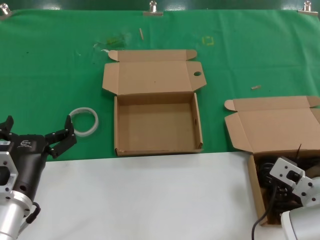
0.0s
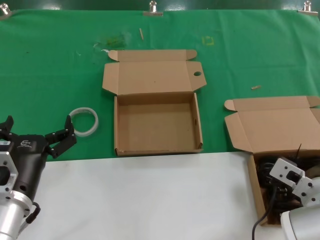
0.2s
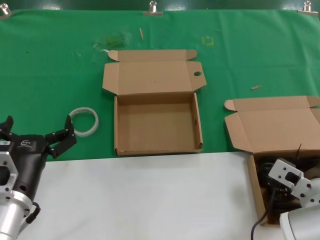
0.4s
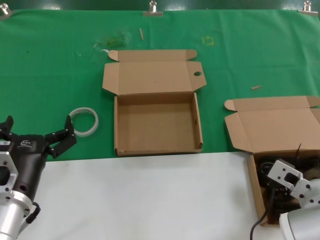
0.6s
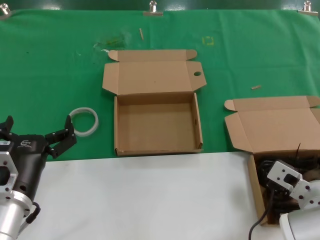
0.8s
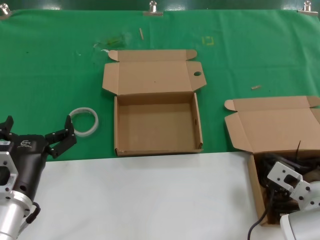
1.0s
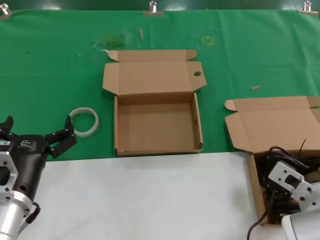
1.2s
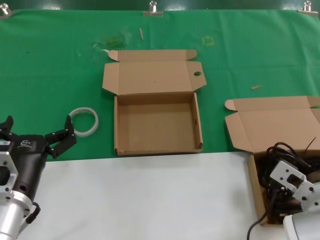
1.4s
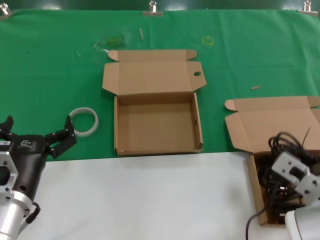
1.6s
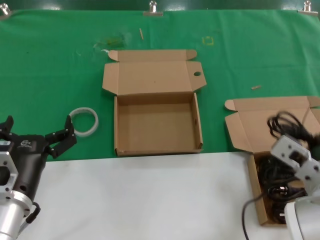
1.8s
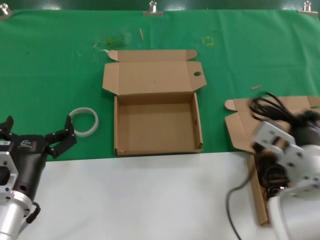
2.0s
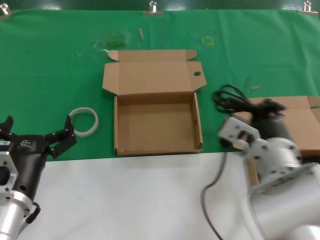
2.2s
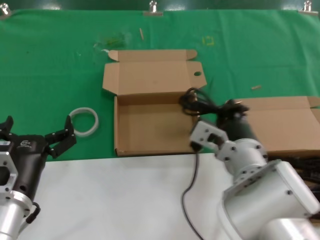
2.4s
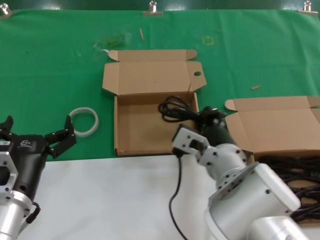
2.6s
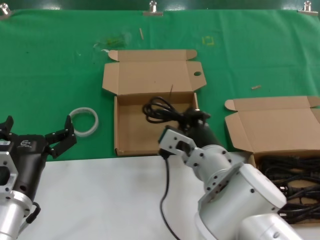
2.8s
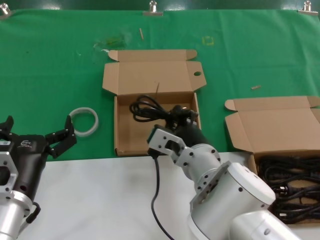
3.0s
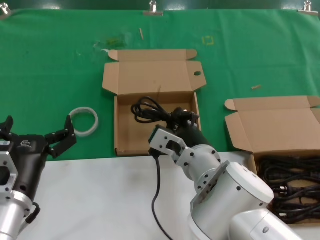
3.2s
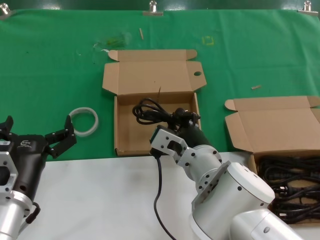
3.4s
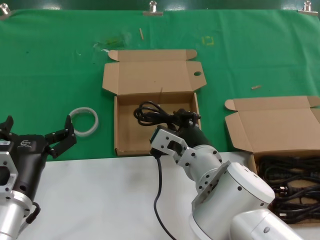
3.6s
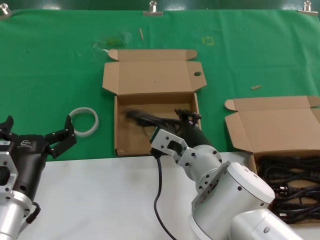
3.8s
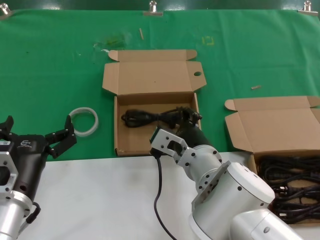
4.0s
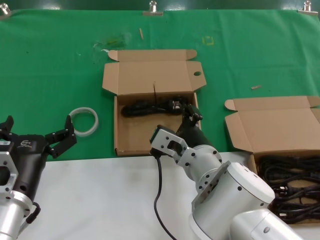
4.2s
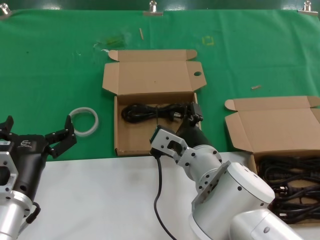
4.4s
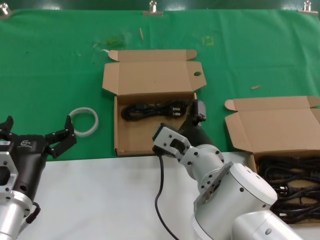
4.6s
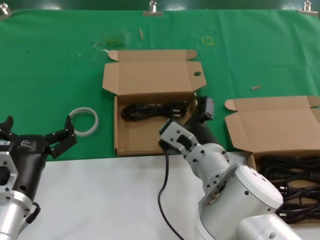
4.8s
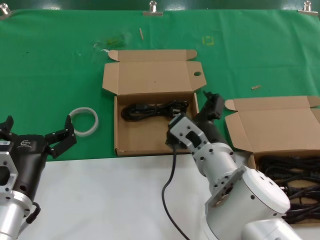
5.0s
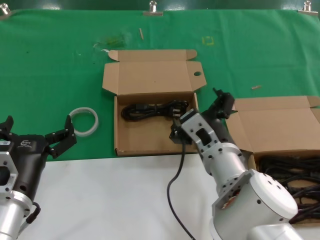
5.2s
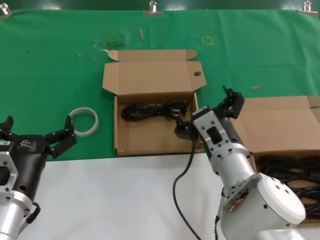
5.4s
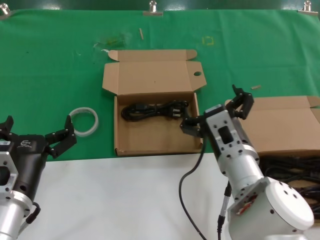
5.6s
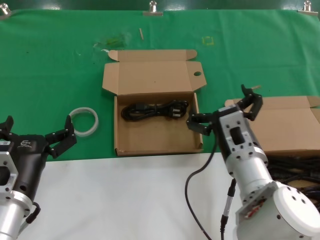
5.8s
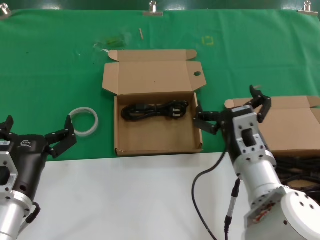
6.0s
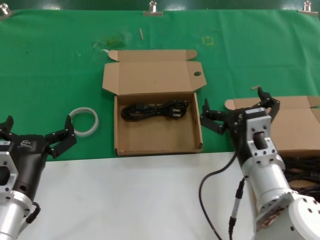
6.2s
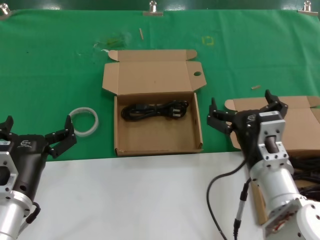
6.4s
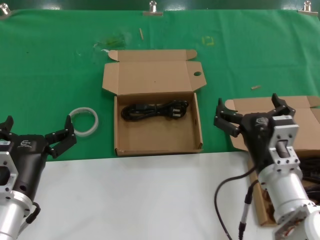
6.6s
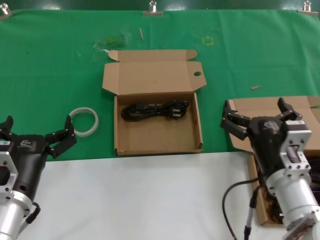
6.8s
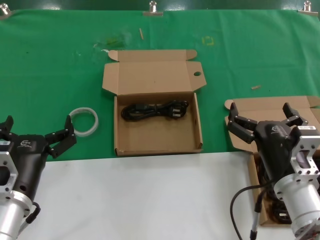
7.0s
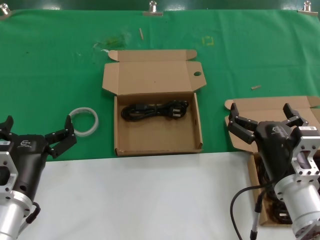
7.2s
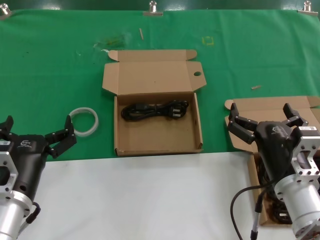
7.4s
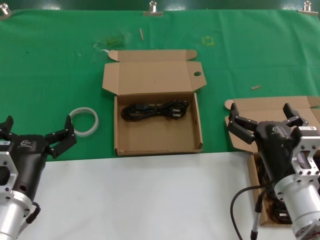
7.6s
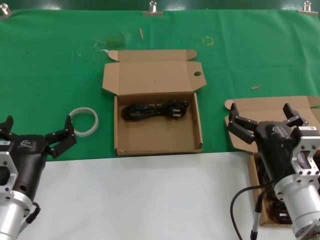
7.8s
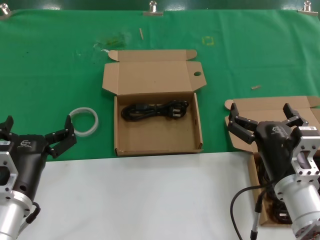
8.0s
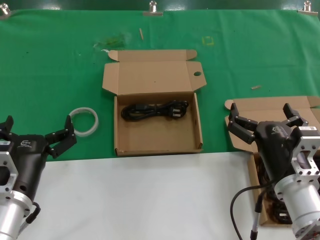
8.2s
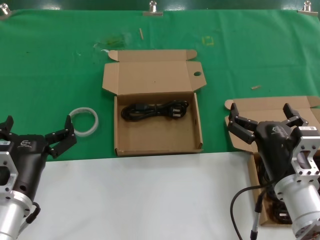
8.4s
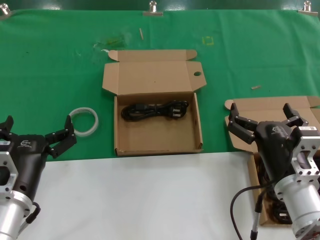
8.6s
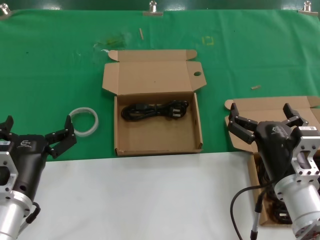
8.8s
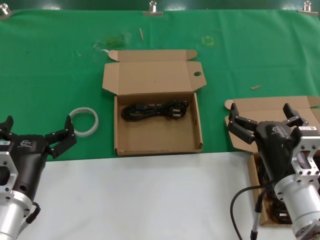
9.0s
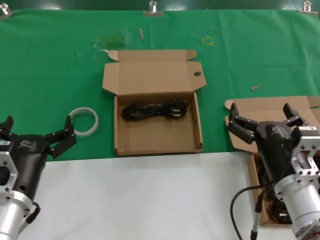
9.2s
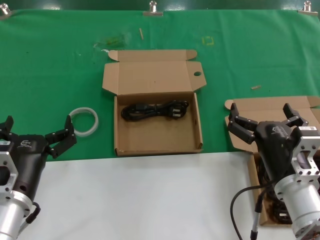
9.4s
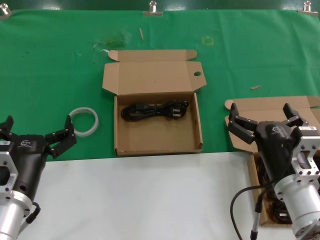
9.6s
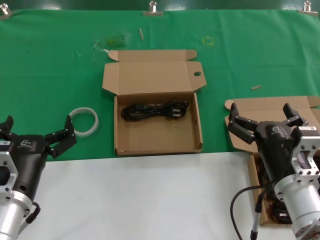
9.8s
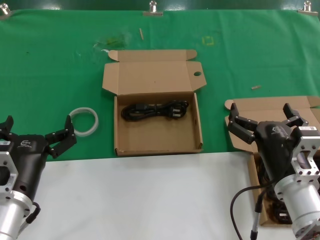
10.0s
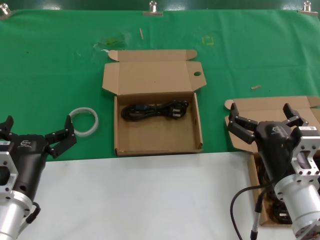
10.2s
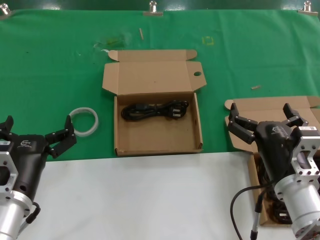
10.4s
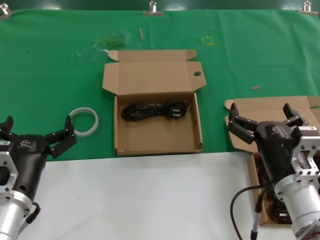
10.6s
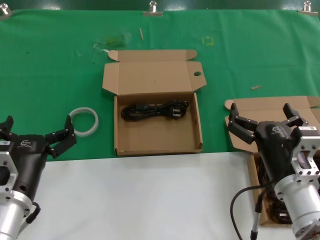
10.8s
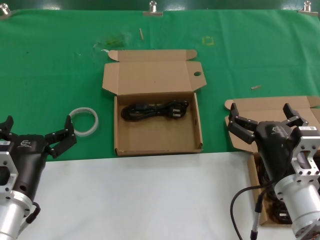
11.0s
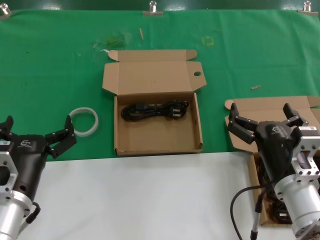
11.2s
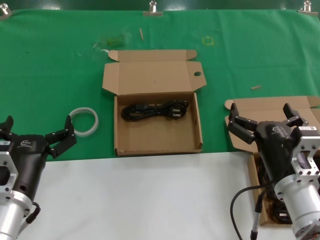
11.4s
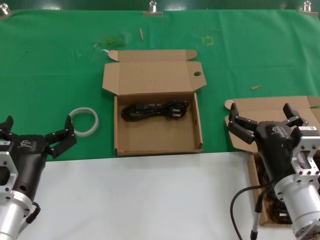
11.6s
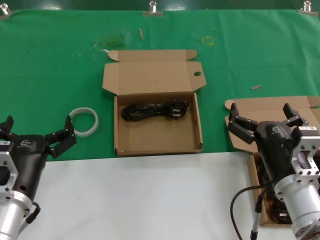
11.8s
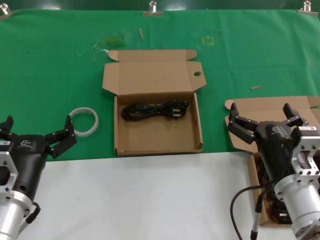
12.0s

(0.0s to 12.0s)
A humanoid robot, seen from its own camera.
Task of the whole recording: take the parts from the box containing them and put them into an empty box.
Step, 1.4s - 3.8s: Place the data cable in the another box.
0.0s - 1.6s: The hands make only small movements.
1.6s - 3.0s: The right hand moves to the left, about 15 cm.
3.0s - 4.4s: Both hands stay put.
4.4s - 6.0s: The right hand heads to the right, covering approximately 10 cm.
6.0s - 7.6s: The right hand travels to the right by roughly 5 cm.
7.6s - 12.0s: Both hands stay put.

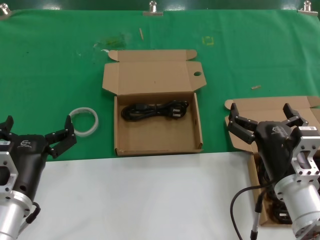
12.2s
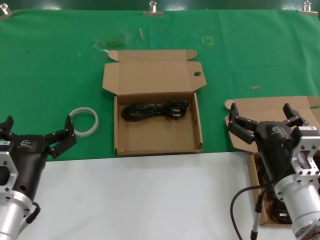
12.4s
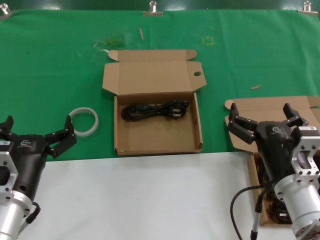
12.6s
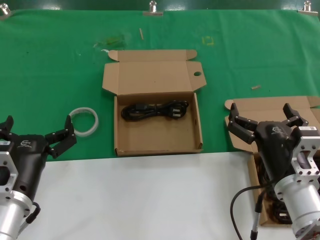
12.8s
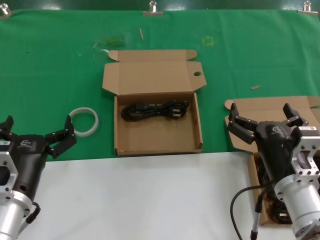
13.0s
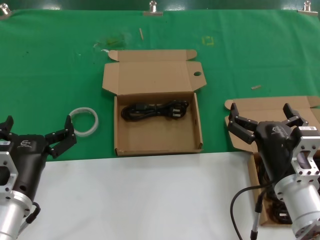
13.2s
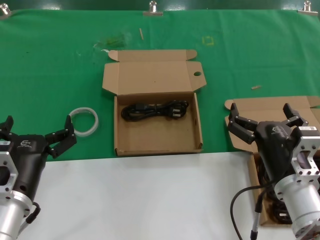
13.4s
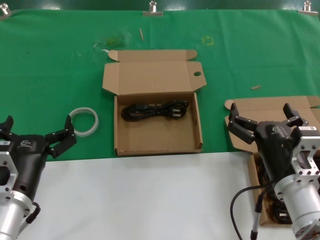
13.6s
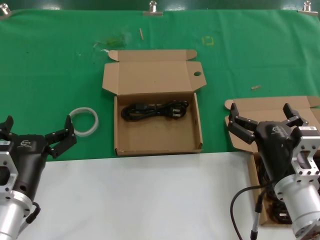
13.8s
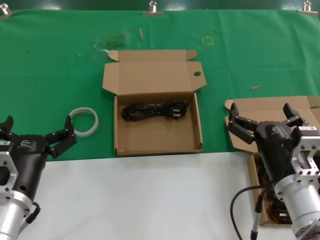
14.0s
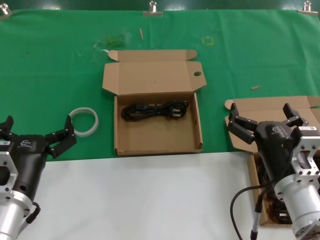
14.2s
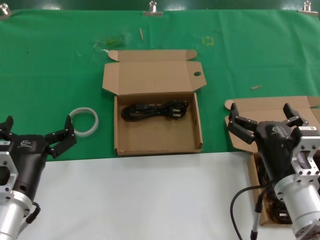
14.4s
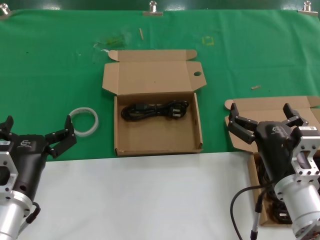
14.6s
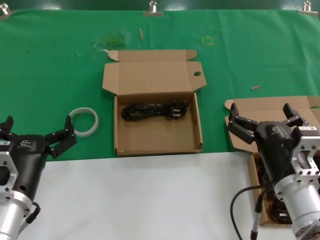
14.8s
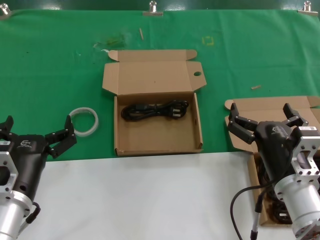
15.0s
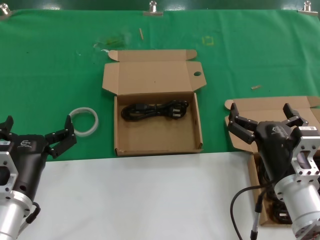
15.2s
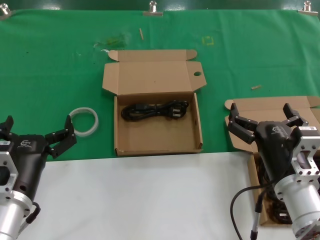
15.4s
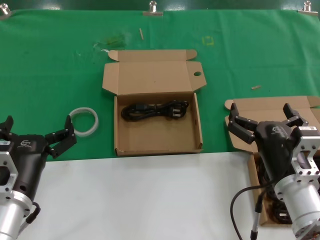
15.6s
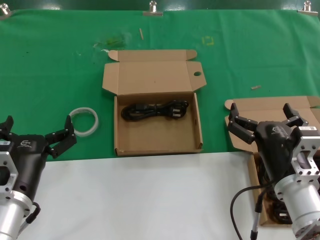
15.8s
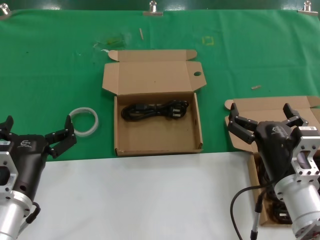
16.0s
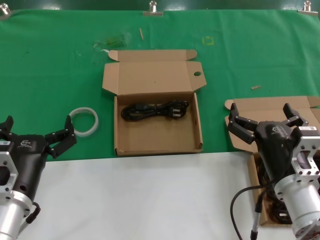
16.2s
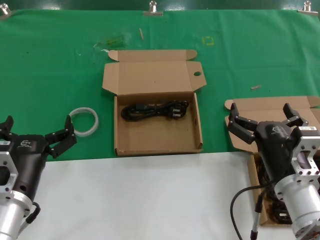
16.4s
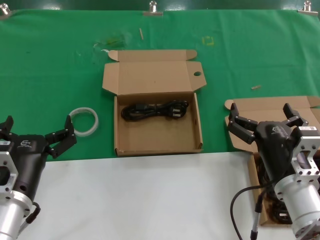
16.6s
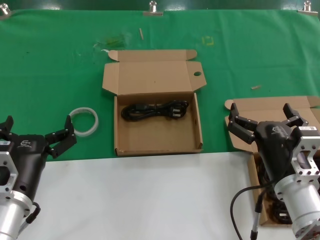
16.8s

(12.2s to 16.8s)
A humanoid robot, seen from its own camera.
Task of the whole recording: take the parts from the box containing them and put them into an empty box.
12.2s - 16.8s: Neither hand changes place.

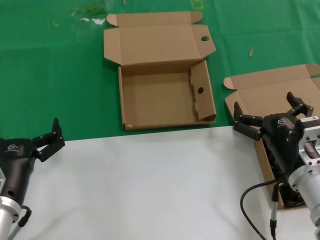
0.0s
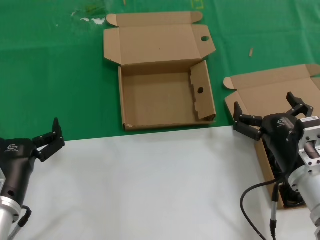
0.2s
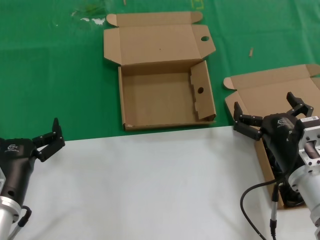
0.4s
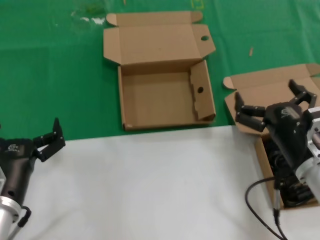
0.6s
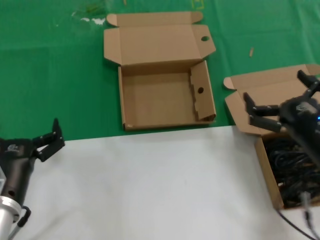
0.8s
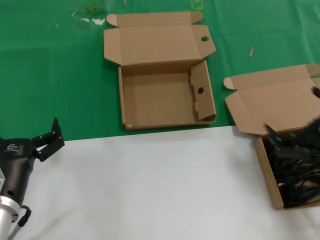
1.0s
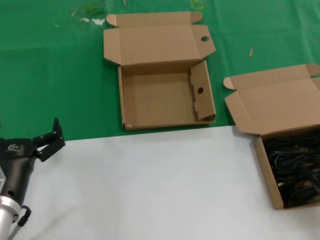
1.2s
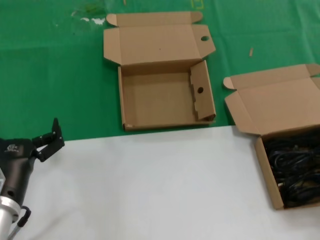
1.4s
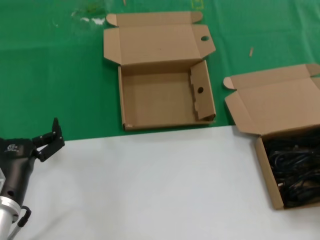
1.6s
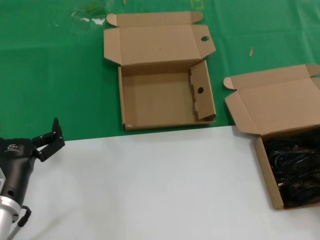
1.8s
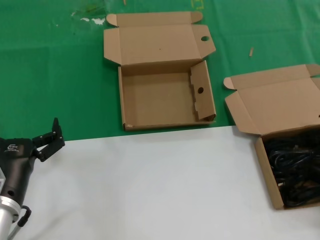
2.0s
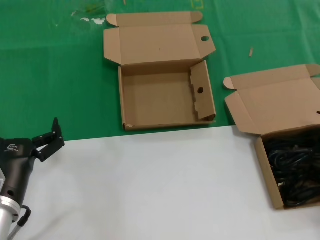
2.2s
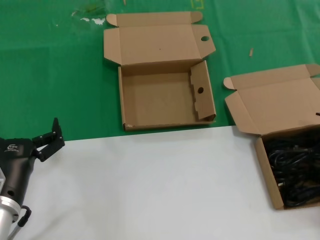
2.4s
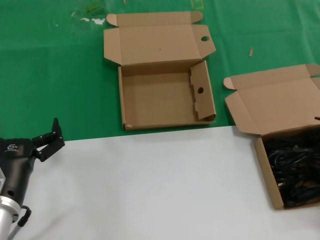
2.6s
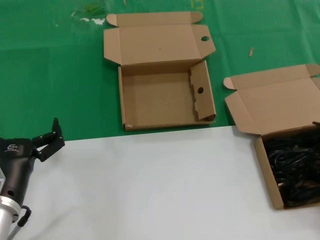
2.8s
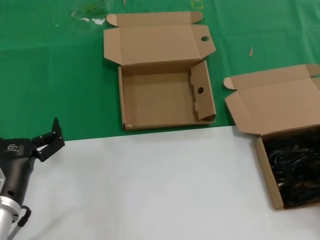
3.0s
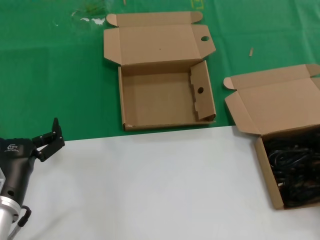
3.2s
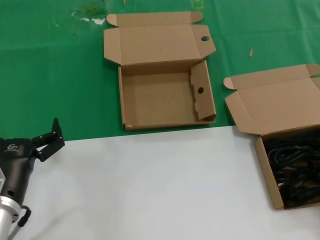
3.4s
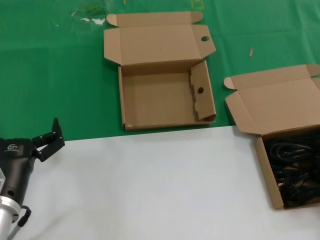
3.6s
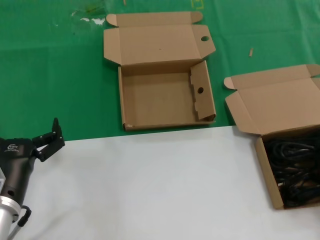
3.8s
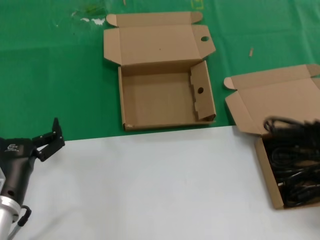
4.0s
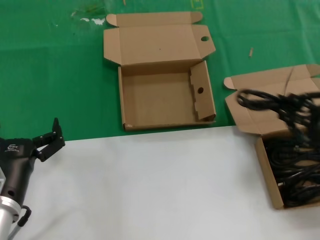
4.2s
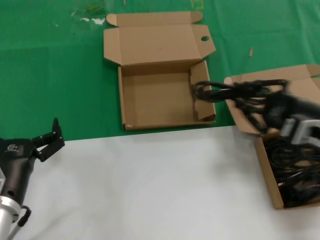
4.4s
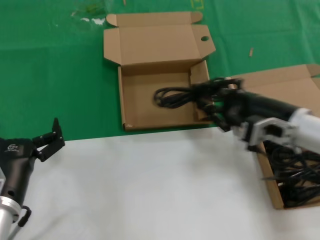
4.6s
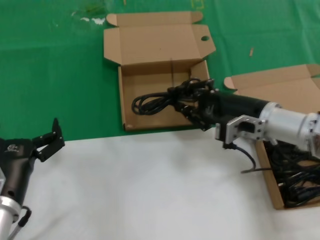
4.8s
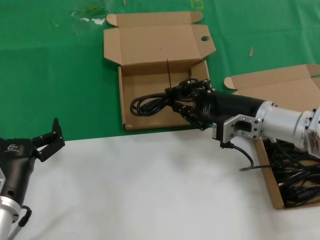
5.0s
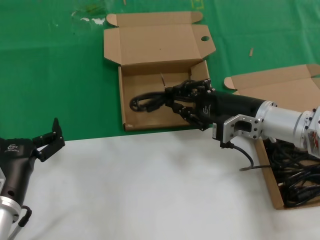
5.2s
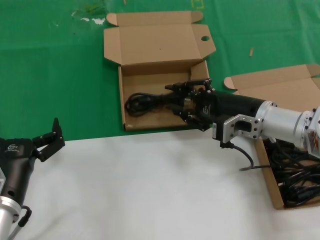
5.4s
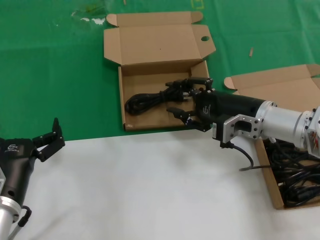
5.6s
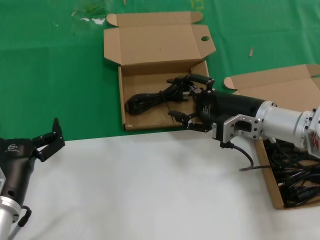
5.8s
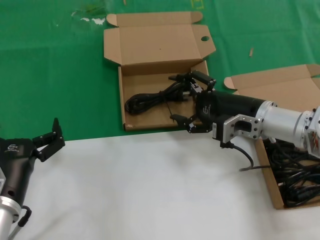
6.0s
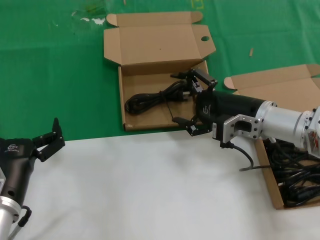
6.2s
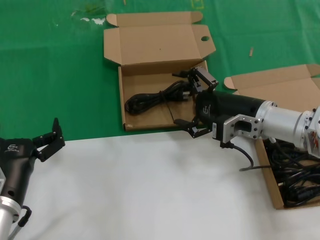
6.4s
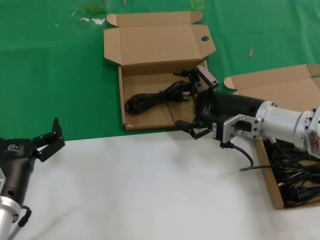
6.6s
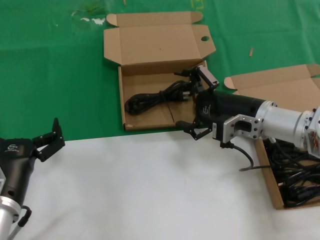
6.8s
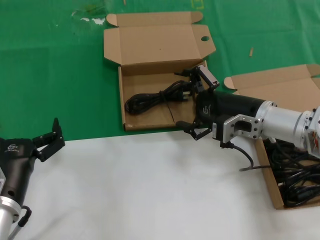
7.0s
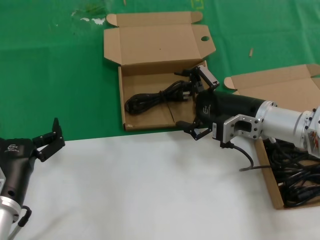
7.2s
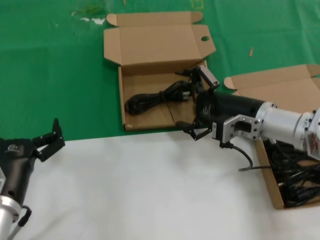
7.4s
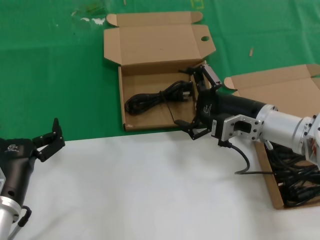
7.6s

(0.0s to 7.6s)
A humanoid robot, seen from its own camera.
Task of the whole recording: take the parts from the box containing them and put them into an empty box.
Step, 0.0s - 3.0s: Grasp the data cable.
Step, 3.2s - 6.0s: Place the data cable in the another box.
0.0s - 1.6s: The right hand is displaced to the right by approximately 20 cm.
3.0s - 4.6s: The right hand goes about 20 cm to the left and forward.
4.6s - 6.0s: The right hand moves forward, approximately 5 cm.
6.0s - 7.6s: The hands make only small movements.
